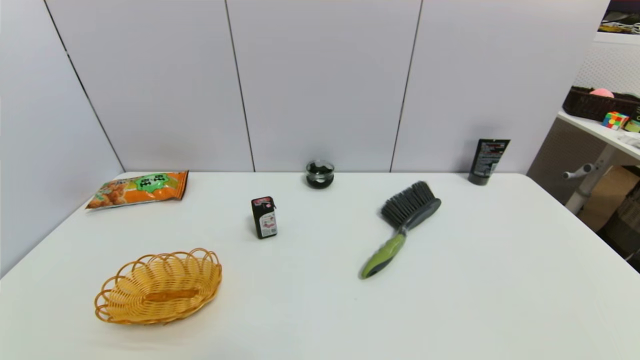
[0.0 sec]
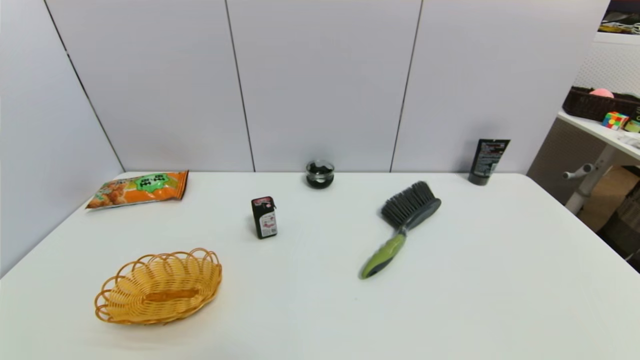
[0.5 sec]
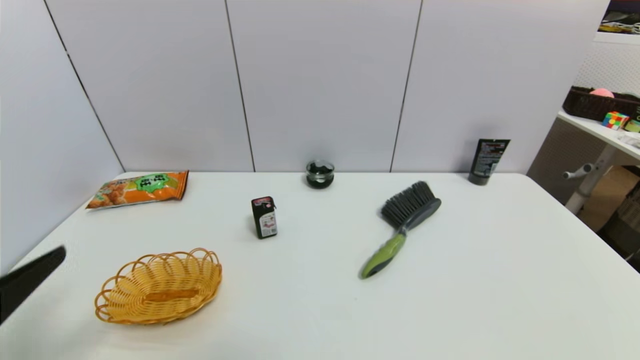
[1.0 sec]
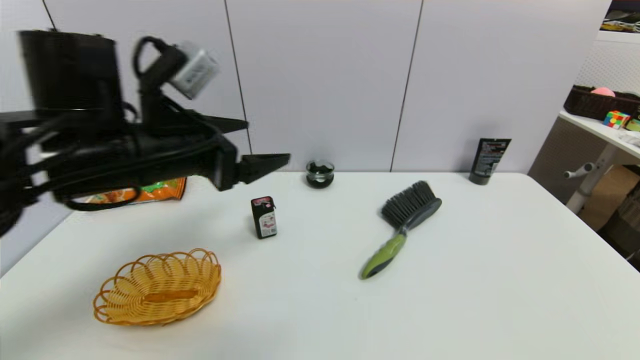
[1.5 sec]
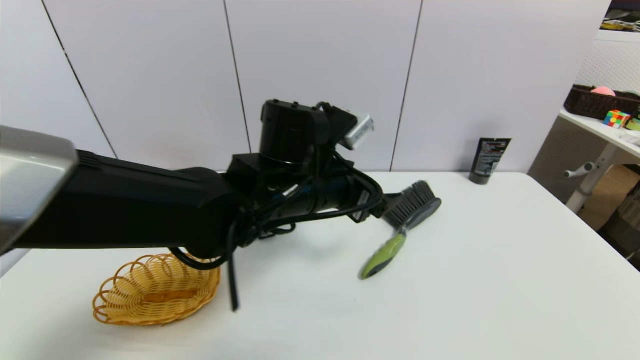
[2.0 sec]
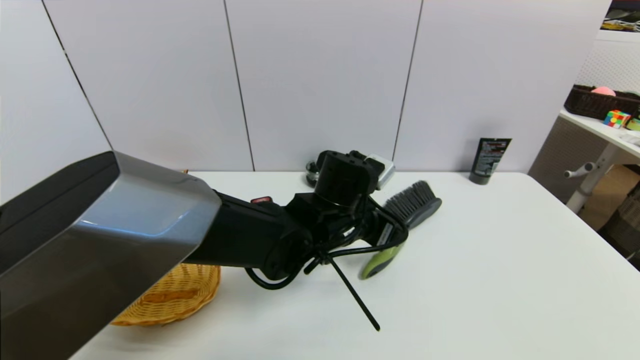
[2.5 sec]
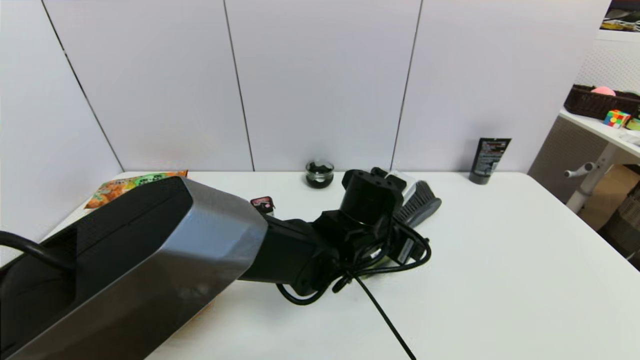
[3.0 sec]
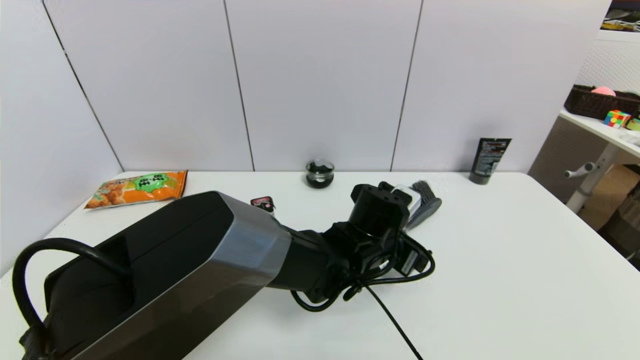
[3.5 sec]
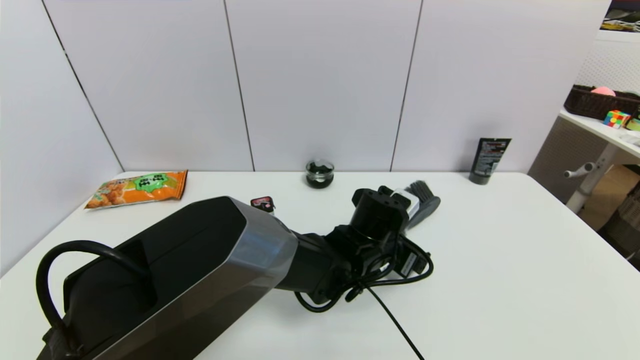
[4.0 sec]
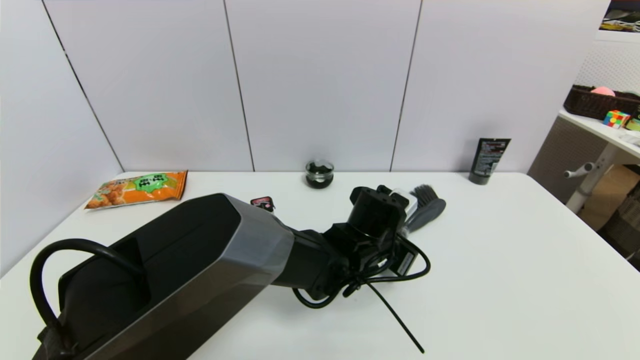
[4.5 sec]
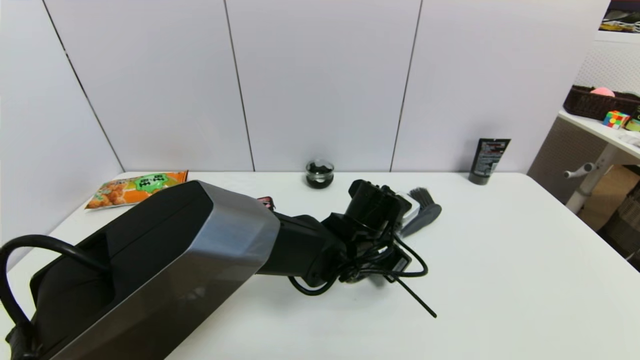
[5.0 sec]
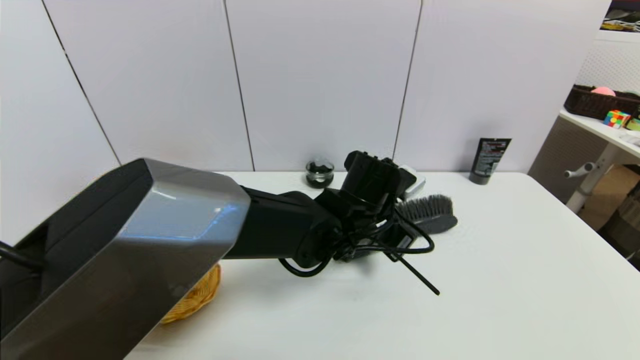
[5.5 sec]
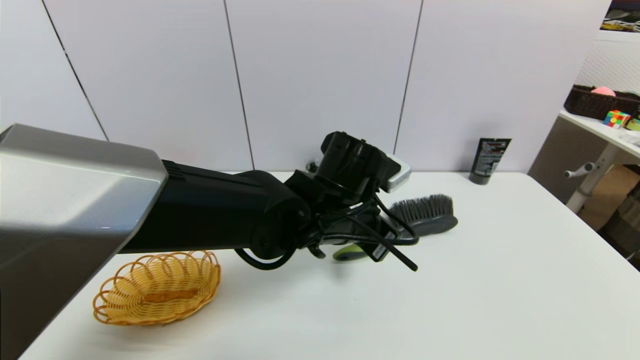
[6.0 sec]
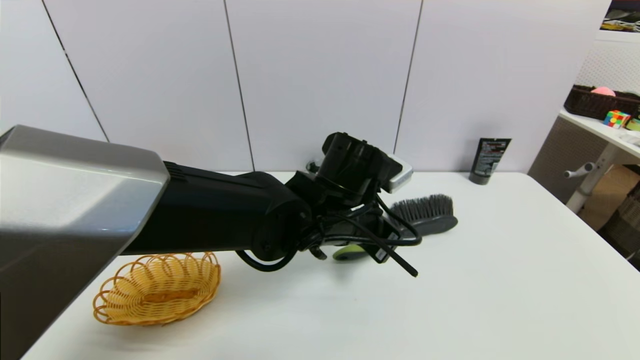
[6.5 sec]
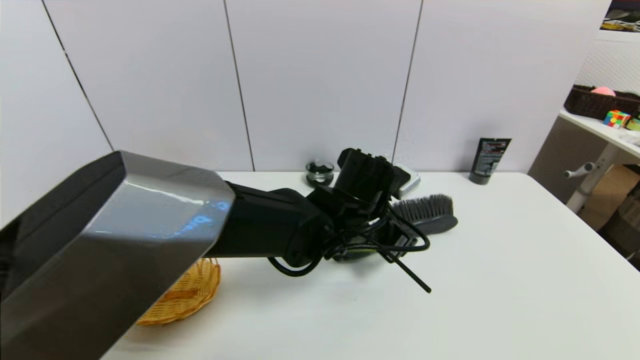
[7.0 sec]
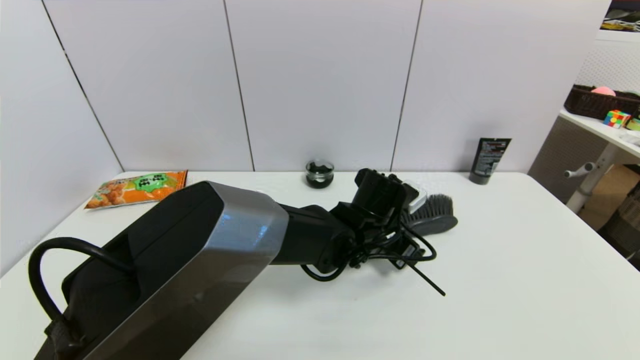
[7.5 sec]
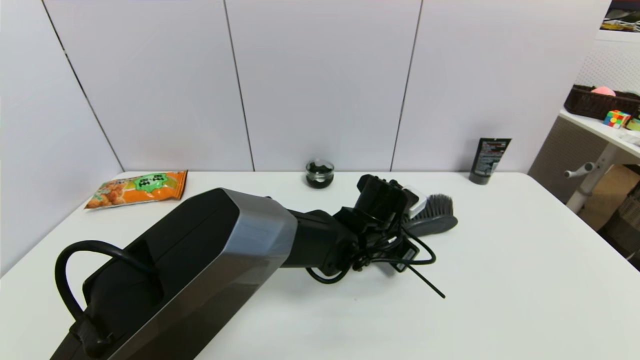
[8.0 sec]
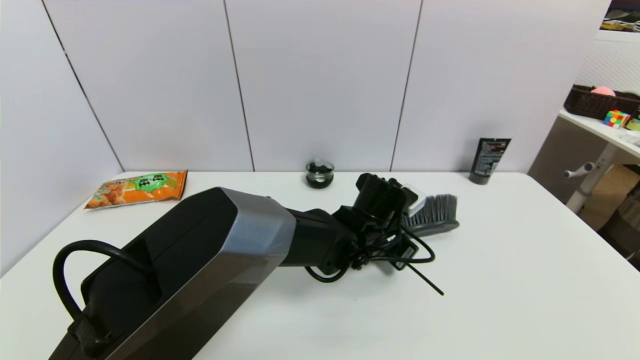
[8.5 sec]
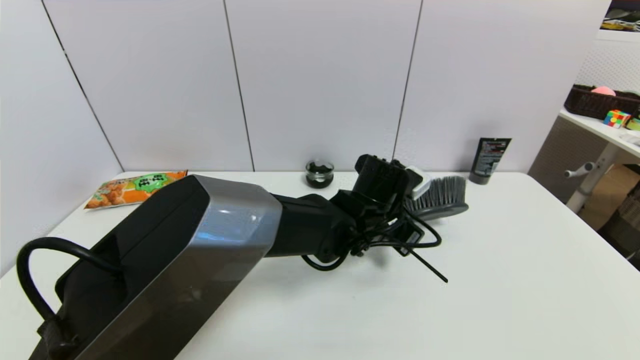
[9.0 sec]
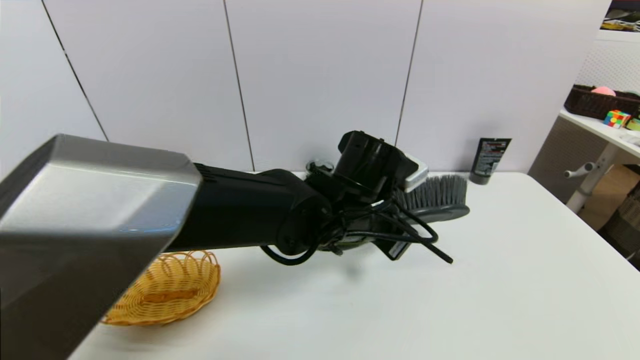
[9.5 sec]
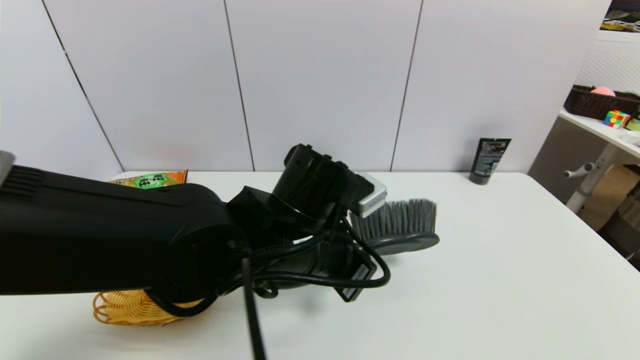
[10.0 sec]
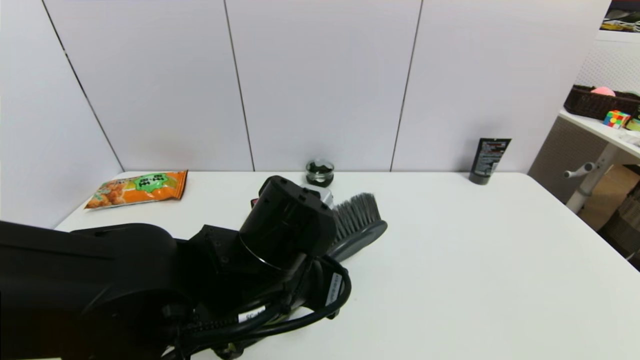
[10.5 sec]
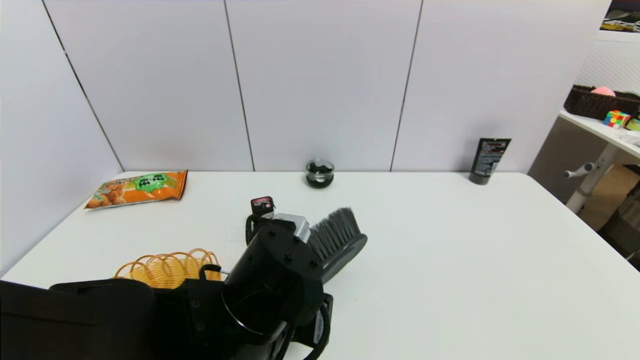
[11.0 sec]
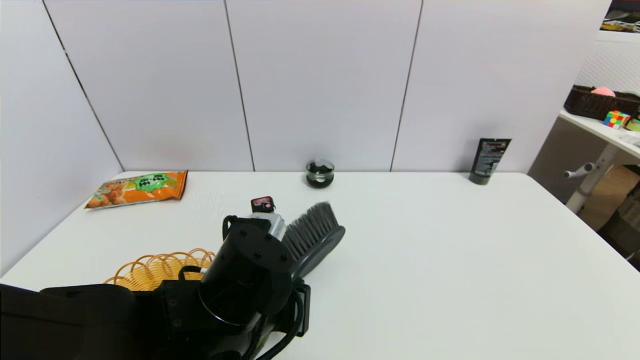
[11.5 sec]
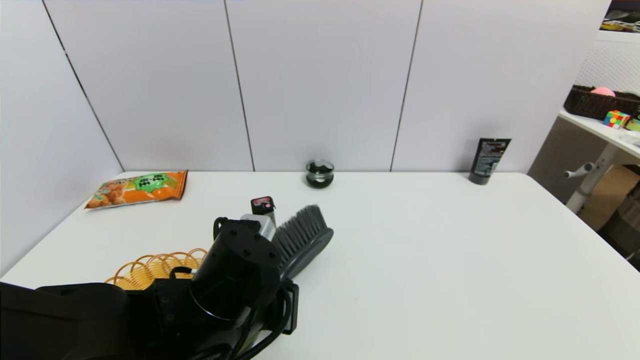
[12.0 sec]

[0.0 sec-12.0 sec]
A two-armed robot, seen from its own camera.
Task of the whole recording: put the brush in the designated position.
Step, 0.0 sec to 8.5 sec: Grasp the brush with left gripper.
0.0 sec to 2.0 sec: The left gripper travels forward, to the right and upward by about 40 cm.
2.0 sec to 4.0 sec: The left gripper heads downward and to the right, covering some 15 cm.
4.0 sec to 6.0 sec: The left gripper goes approximately 10 cm upward and to the left, and closes up.
6.0 sec to 8.0 sec: The left gripper heads downward and to the right, covering some 10 cm, and opens.
8.0 sec to 10.0 sec: The left gripper goes some 15 cm to the left, backward and upward.
10.0 sec to 12.0 sec: The left gripper goes some 10 cm to the left and downward.

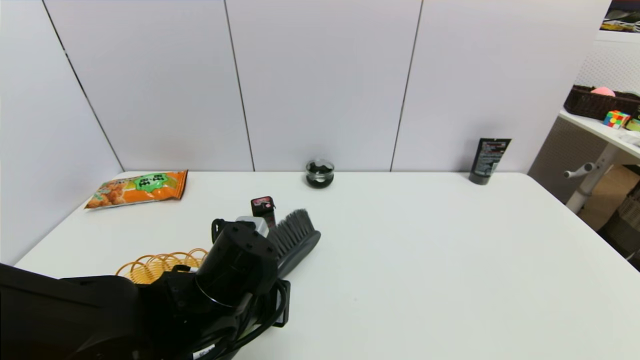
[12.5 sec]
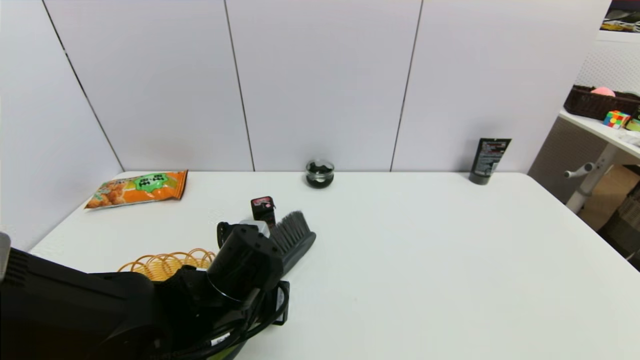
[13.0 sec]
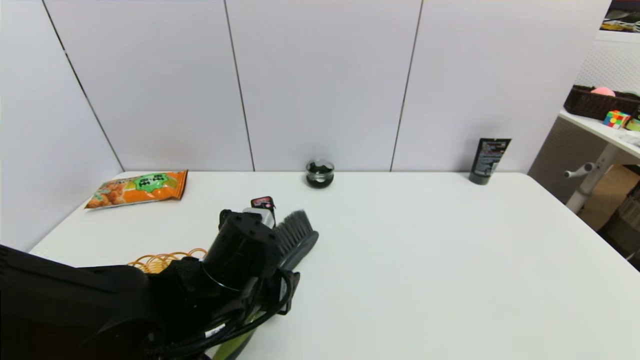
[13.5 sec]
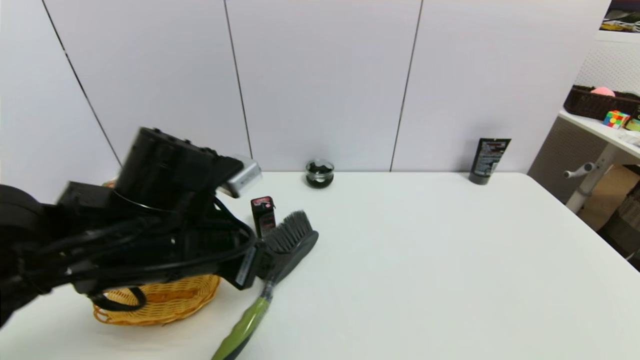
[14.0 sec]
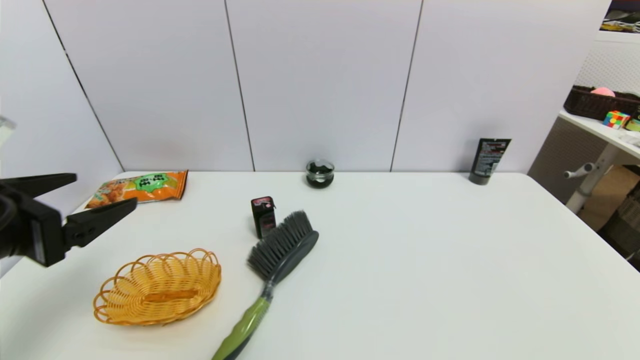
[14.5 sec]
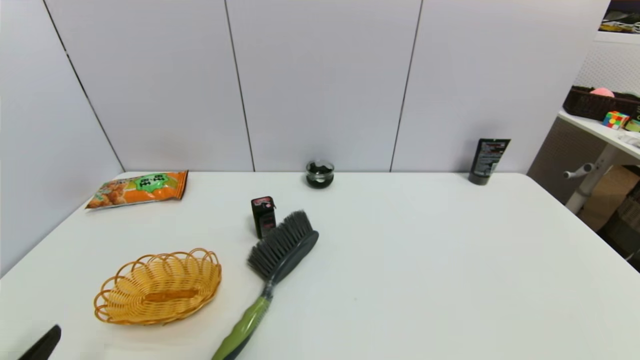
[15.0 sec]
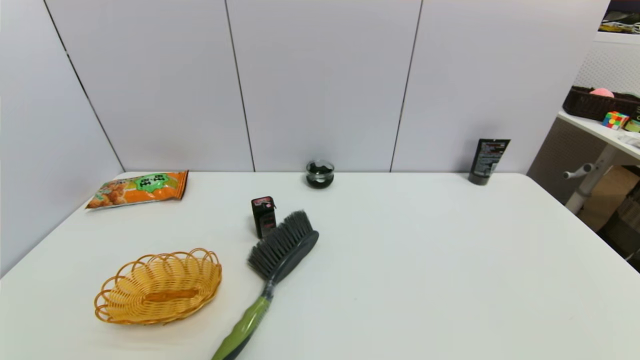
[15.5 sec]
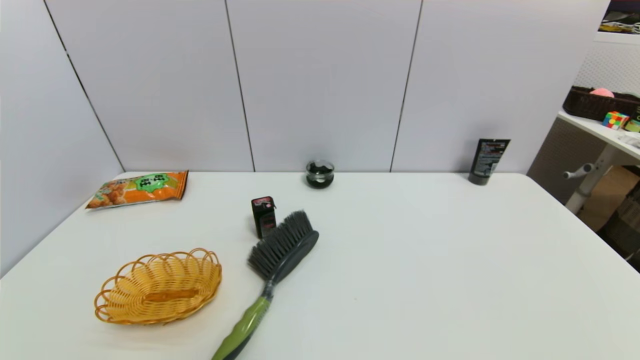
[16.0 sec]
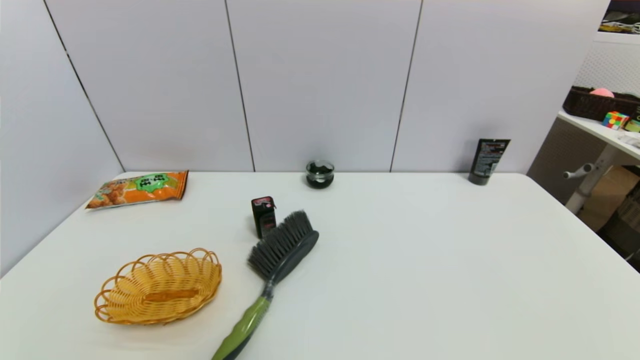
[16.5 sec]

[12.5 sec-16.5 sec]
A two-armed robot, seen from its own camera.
Task of the whole recording: put the brush in the designated position.
12.5 sec to 14.5 sec: The left gripper shifts about 20 cm to the left and upward, and opens up.
14.5 sec to 16.5 sec: The left gripper heads downward and backward, covering roughly 25 cm.
